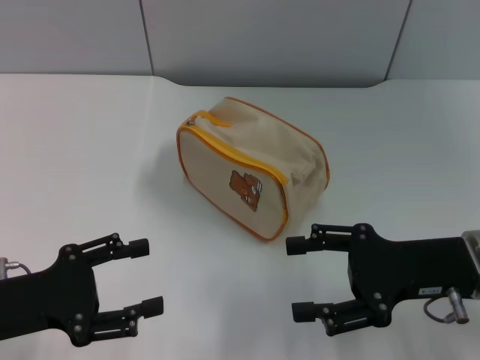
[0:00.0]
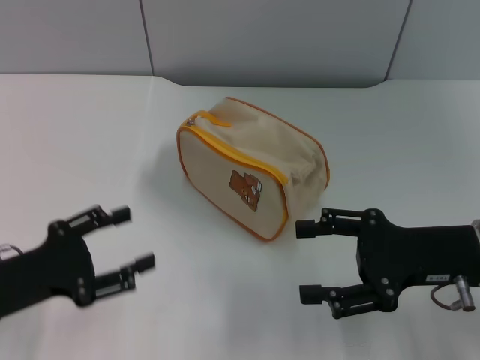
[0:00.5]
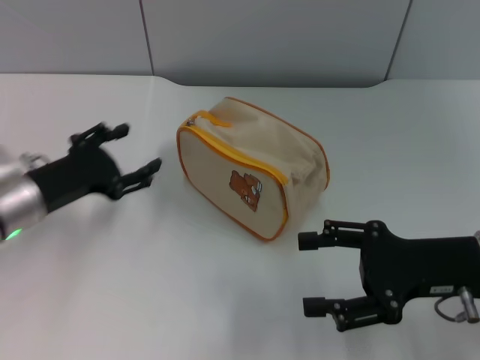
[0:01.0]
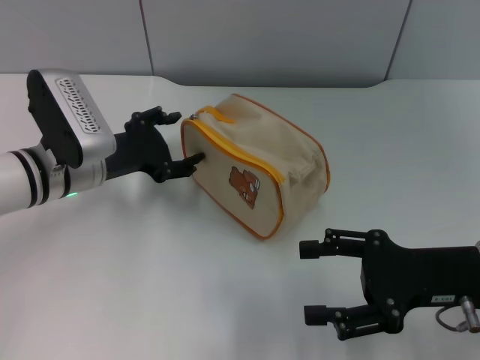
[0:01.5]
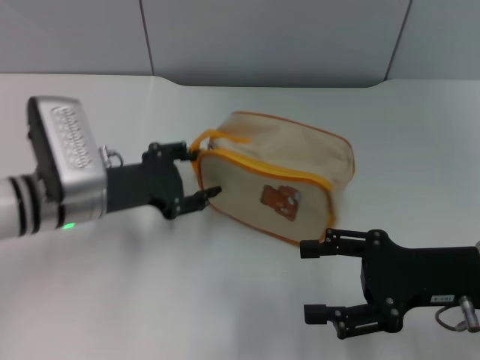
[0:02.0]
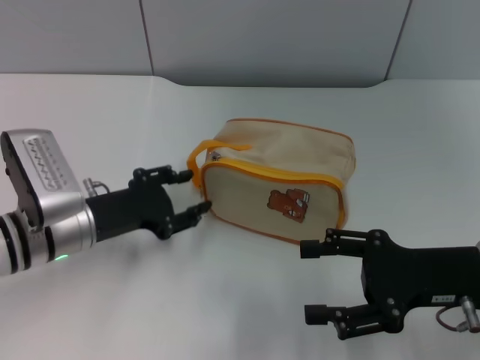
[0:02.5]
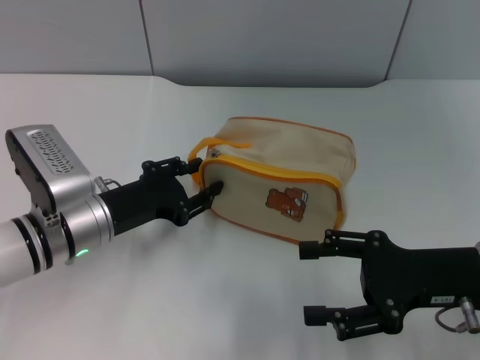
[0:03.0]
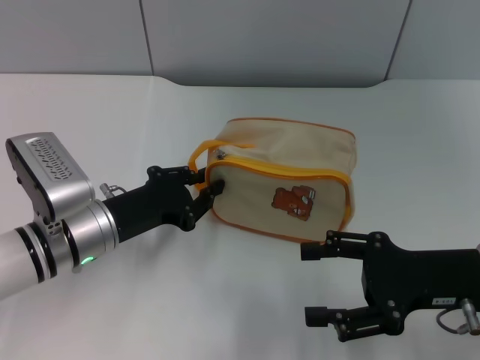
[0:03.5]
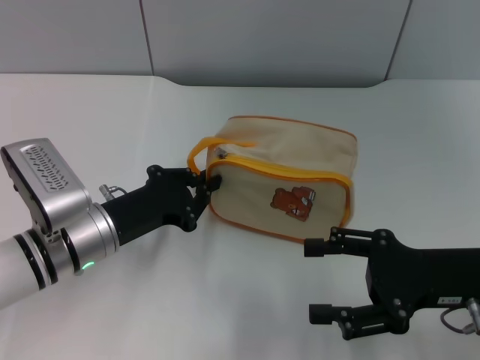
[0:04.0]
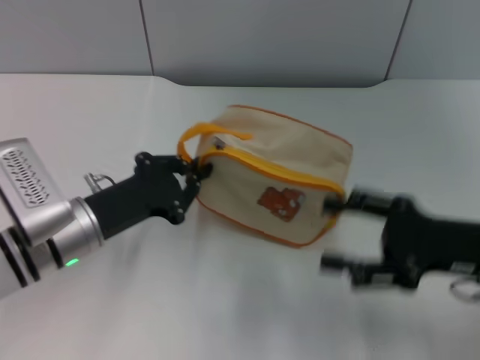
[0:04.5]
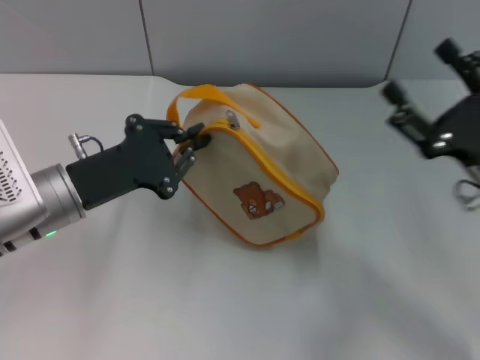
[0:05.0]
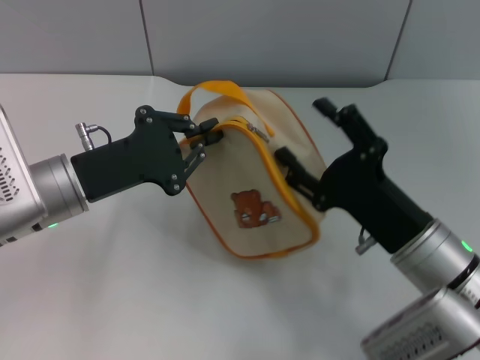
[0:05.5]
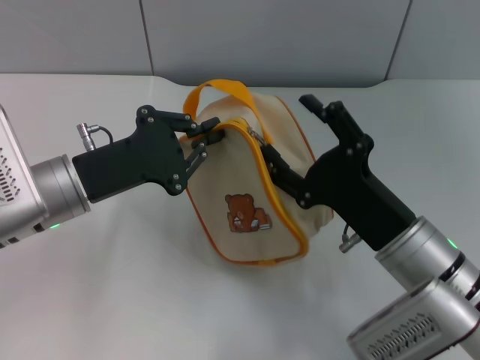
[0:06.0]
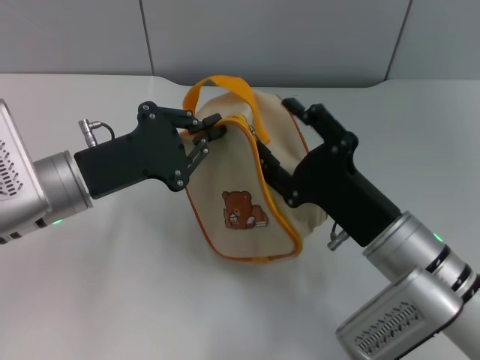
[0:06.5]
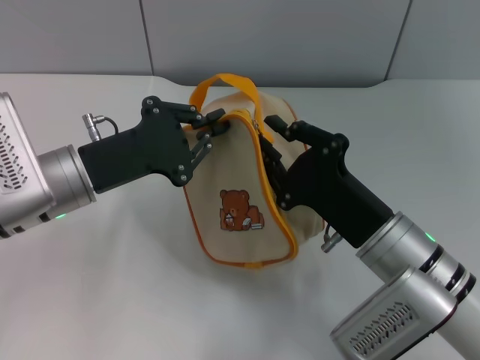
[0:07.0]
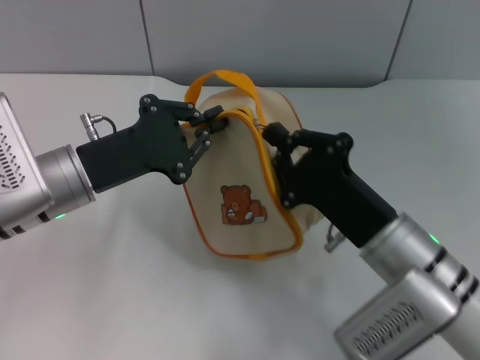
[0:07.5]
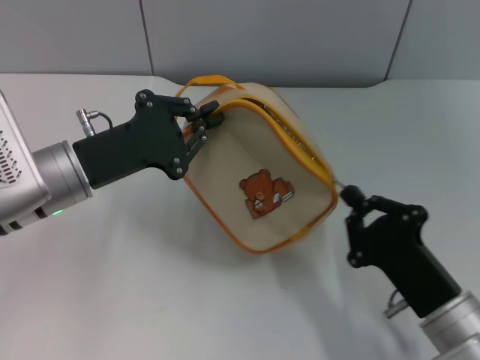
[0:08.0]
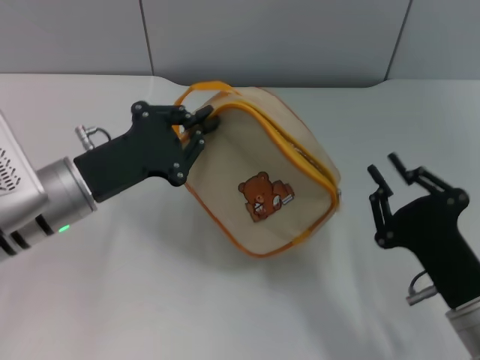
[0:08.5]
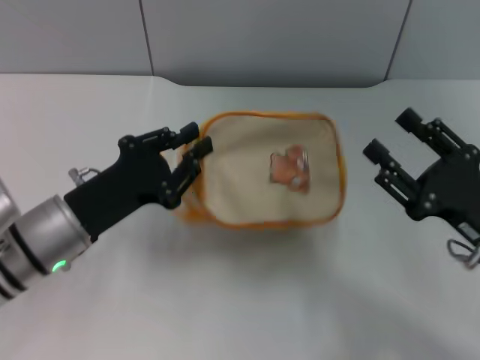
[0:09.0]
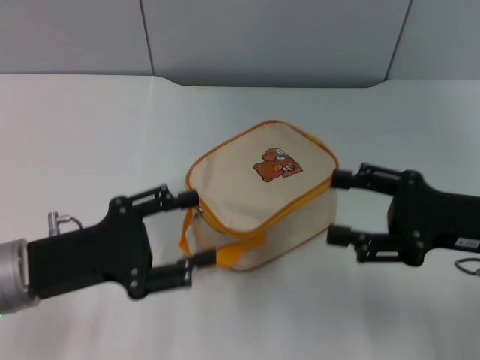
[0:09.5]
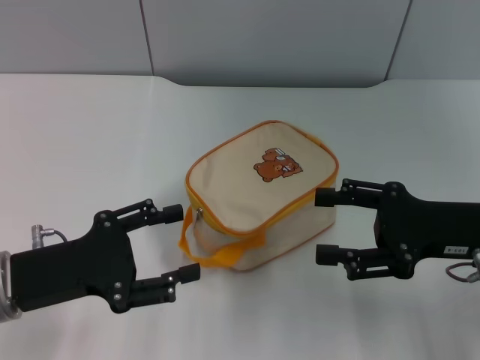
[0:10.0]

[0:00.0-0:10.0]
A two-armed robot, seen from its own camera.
Step, 0:00.0 to 0:04.5: Pick up the bag with left gripper.
Step, 0:05.0 to 0:08.0: Unzip the zipper of bag with right gripper.
Step, 0:08.5 to 0:09.0: Place the bag on the table with left gripper.
0:00.0 to 0:02.0: The left gripper goes approximately 15 cm forward and to the right.
0:02.0 to 0:04.0: The left gripper changes place by roughly 5 cm, and closes.
0:04.0 to 0:06.0: The right gripper moves to the left, approximately 10 cm. Meanwhile the left gripper heads upward, covering some 5 cm.
0:06.0 to 0:08.0: The right gripper heads backward, covering about 5 cm, and closes.
0:08.0 to 0:10.0: The left gripper moves backward, some 10 cm, and opens up. The right gripper is displaced upward, forward and to the right by roughly 15 cm, and opens up.
